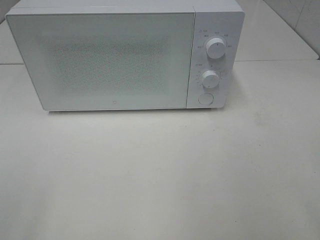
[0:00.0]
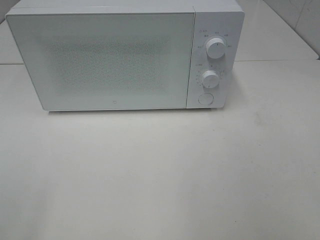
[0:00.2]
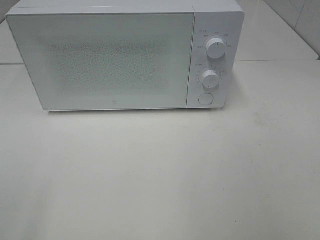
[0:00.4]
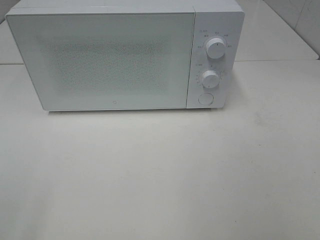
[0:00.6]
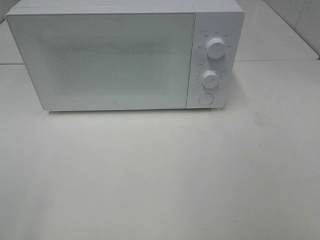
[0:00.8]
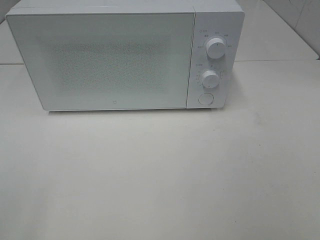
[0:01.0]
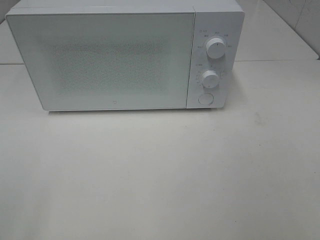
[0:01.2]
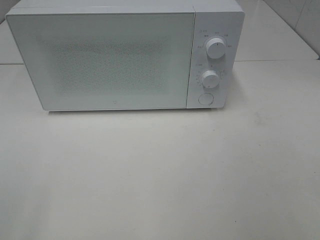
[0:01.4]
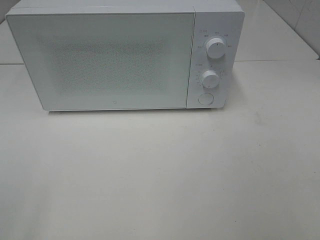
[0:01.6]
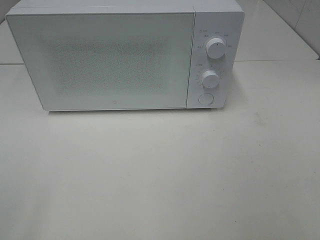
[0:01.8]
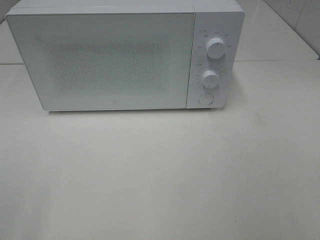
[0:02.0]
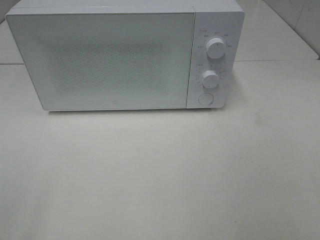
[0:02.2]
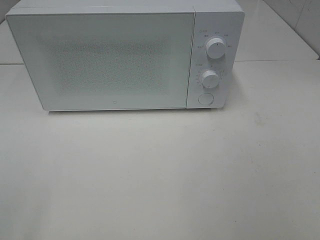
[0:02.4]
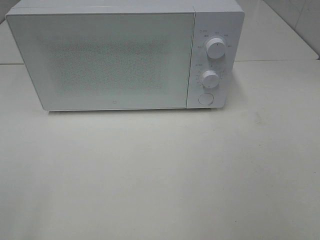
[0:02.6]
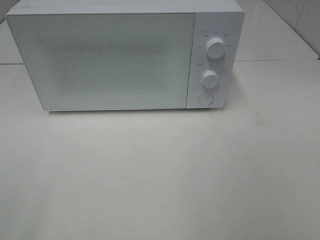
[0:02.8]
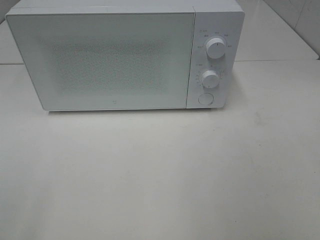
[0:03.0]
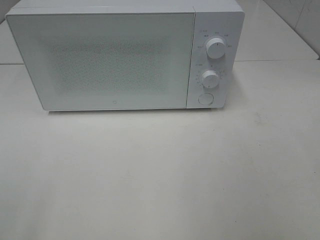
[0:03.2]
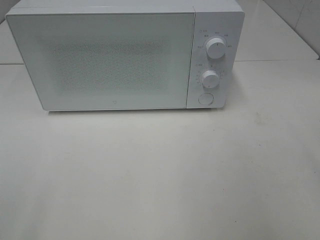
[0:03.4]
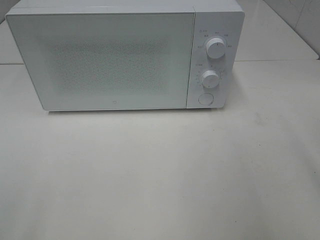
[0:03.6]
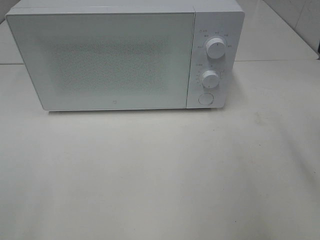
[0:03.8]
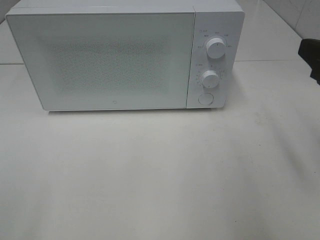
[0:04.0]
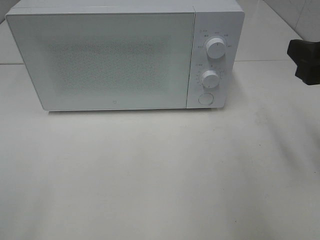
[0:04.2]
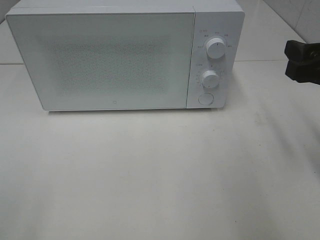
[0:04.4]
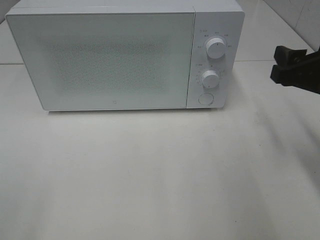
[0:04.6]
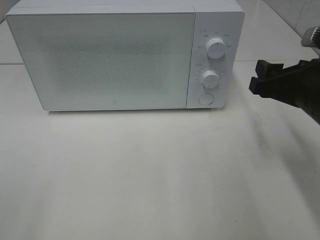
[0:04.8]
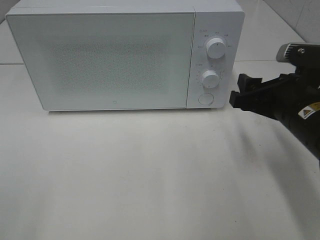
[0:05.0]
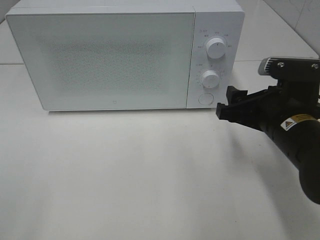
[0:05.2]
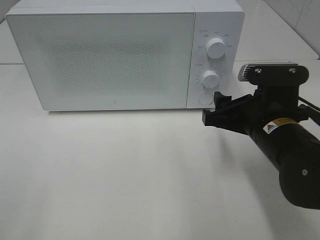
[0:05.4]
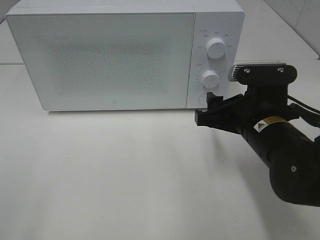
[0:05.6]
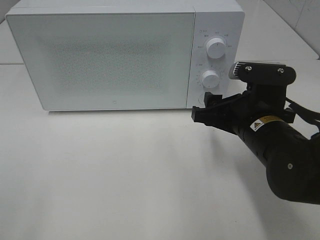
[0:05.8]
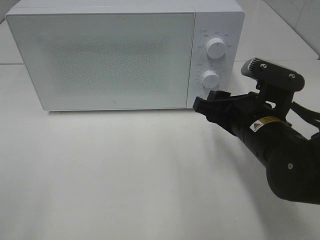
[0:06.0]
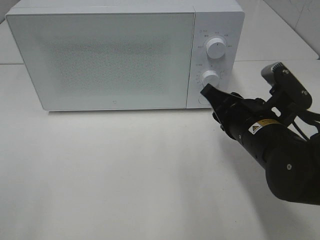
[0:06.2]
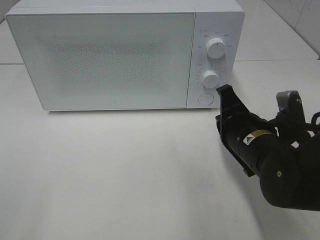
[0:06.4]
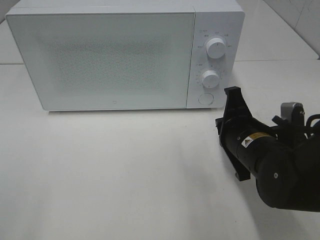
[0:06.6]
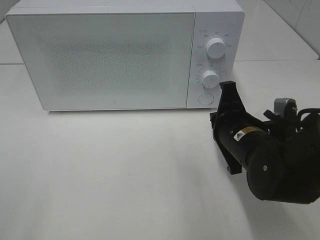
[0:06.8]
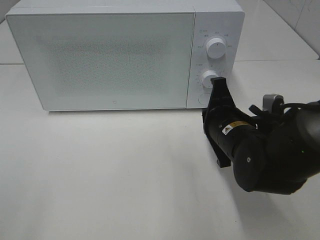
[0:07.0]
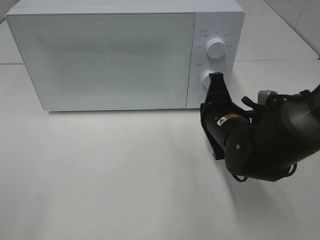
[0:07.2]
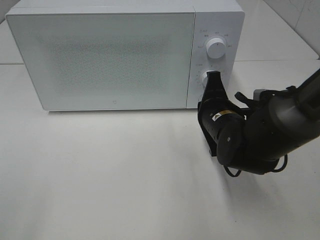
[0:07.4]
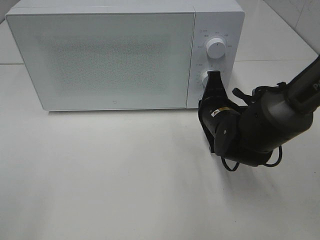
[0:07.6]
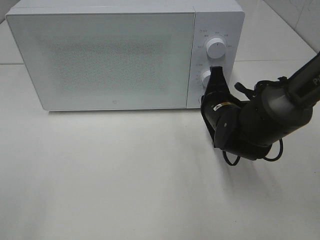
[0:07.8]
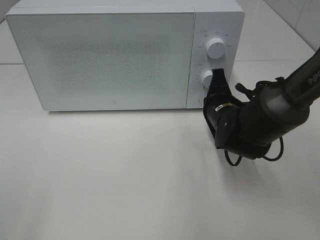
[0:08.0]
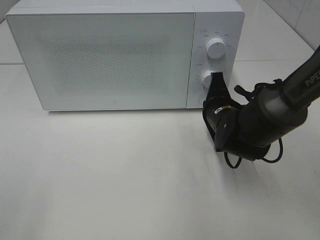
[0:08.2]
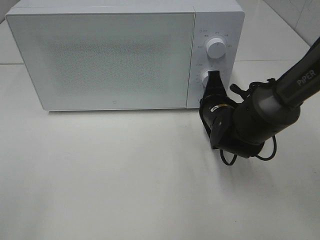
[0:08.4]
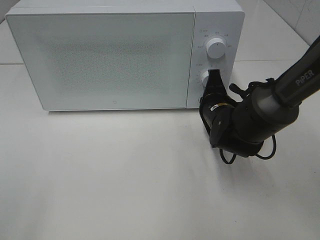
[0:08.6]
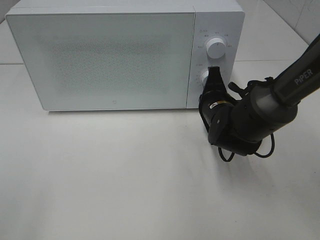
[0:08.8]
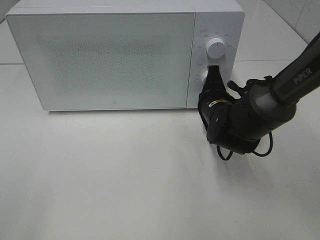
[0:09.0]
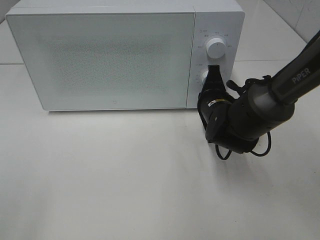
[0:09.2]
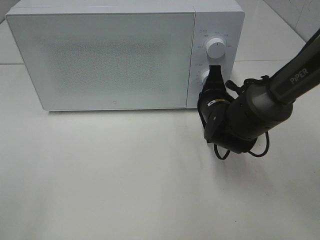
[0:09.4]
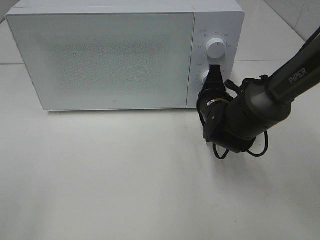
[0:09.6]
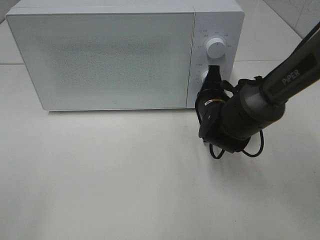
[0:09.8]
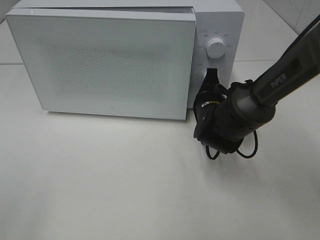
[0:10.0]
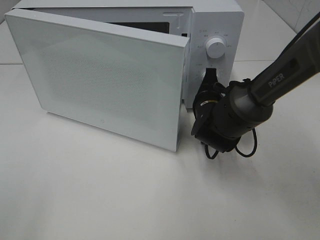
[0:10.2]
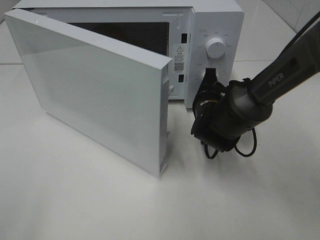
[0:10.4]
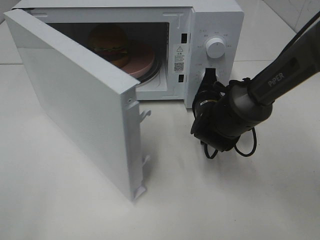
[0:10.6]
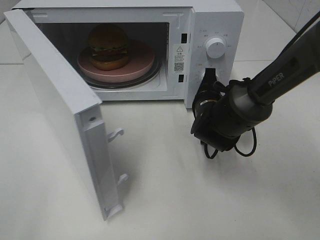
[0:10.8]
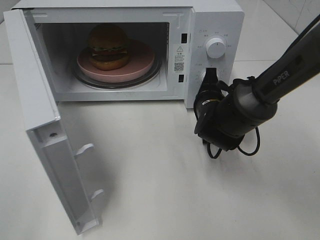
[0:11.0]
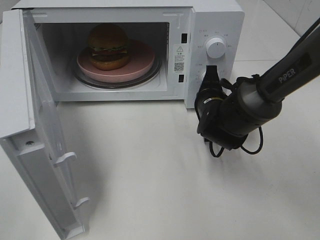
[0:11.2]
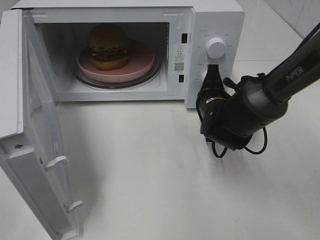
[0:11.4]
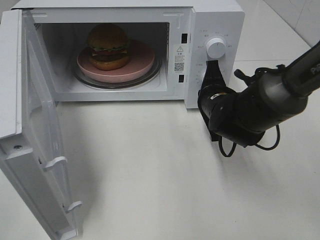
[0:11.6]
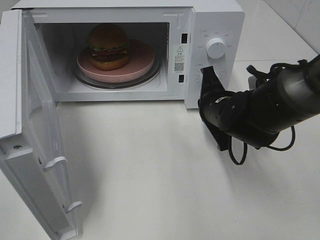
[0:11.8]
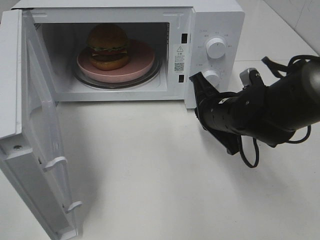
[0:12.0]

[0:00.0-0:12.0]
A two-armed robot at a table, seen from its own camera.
Task of the whole recording: Heat the burger.
Step, 0:00.0 to 0:11.6: Right hand: press the switch.
0:03.0 to 0:04.4: The right gripper travels forward and downward by some 20 cm.
0:04.4 to 0:06.0: The right gripper is displaced to the left and downward by some 15 cm.
0:06.0 to 0:07.6: The right gripper shifts some 10 cm forward and downward, and closes its fingers.
0:07.6 to 0:09.0: The grippers stay close to where they were, moving slightly.
0:10.4 to 0:12.0: The right gripper is displaced backward by about 5 cm.

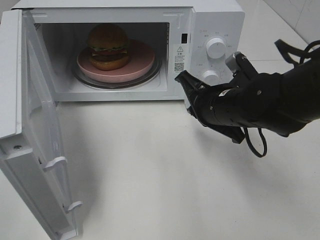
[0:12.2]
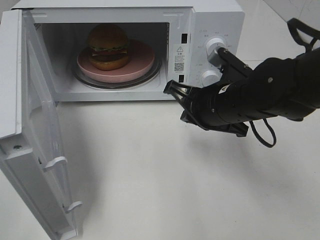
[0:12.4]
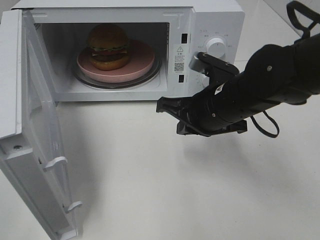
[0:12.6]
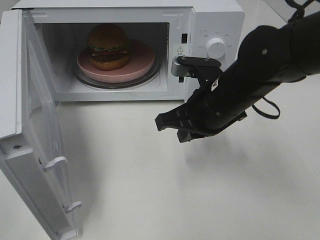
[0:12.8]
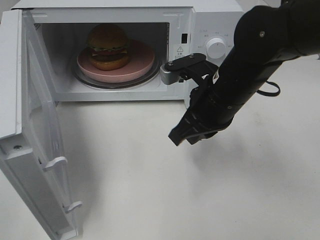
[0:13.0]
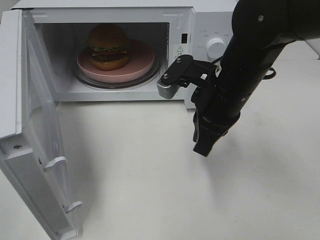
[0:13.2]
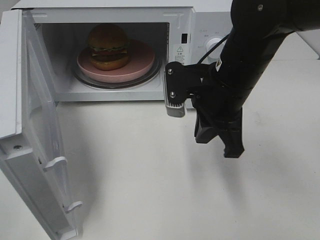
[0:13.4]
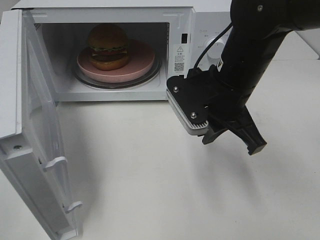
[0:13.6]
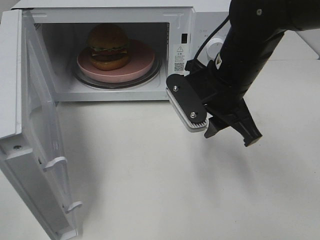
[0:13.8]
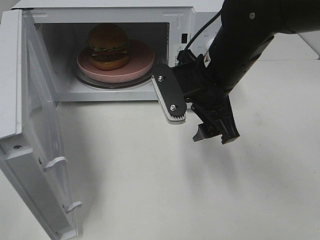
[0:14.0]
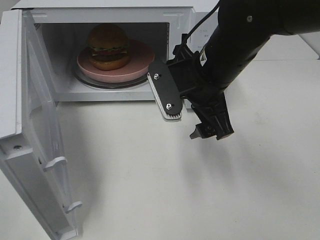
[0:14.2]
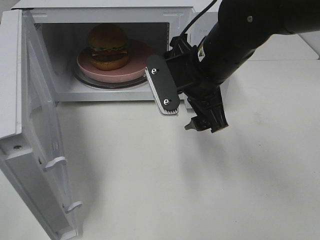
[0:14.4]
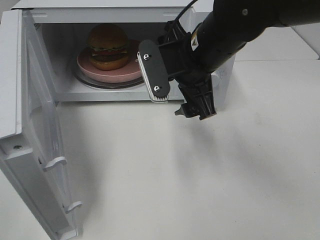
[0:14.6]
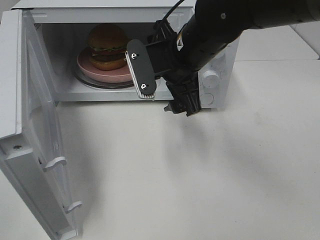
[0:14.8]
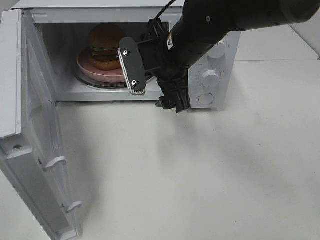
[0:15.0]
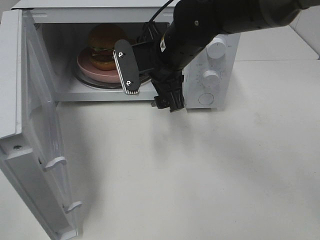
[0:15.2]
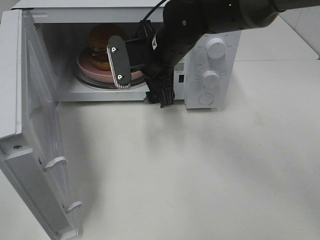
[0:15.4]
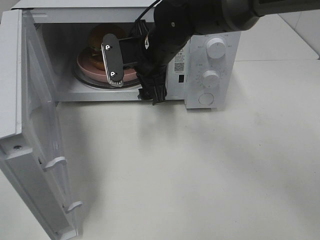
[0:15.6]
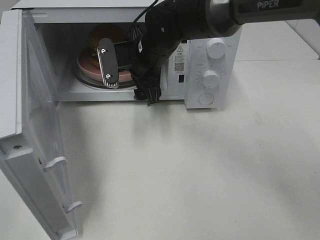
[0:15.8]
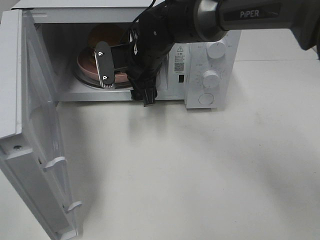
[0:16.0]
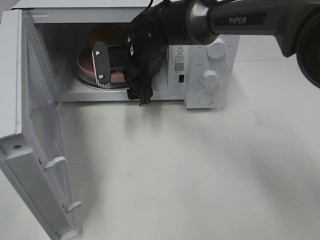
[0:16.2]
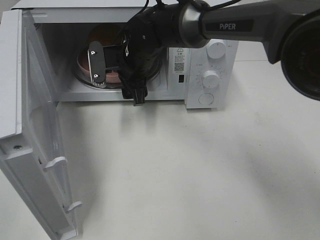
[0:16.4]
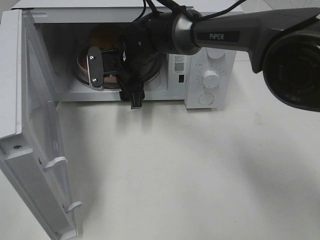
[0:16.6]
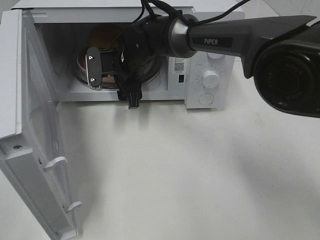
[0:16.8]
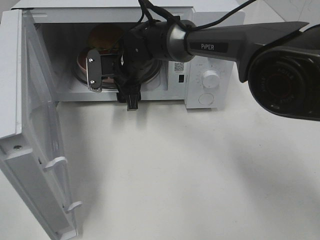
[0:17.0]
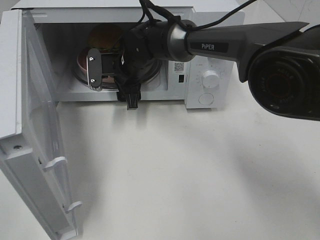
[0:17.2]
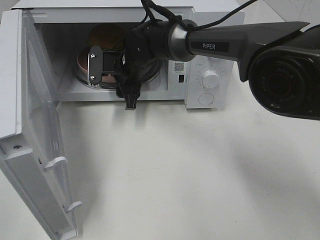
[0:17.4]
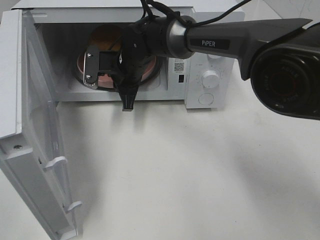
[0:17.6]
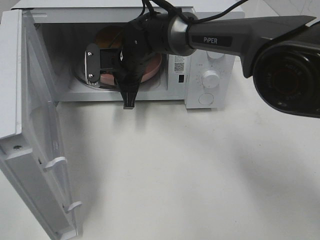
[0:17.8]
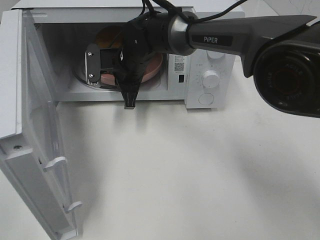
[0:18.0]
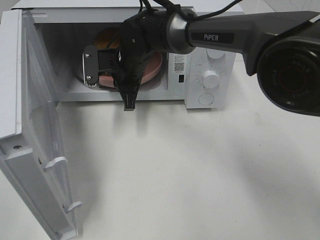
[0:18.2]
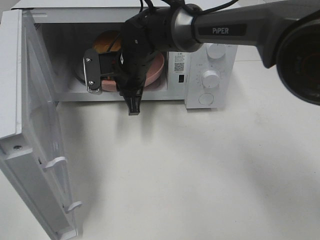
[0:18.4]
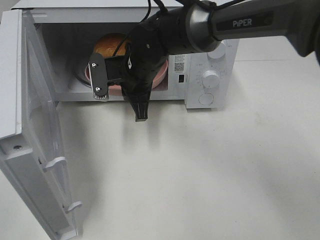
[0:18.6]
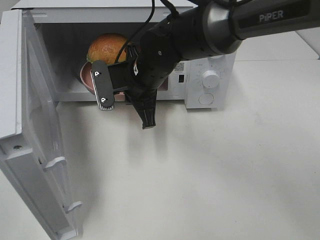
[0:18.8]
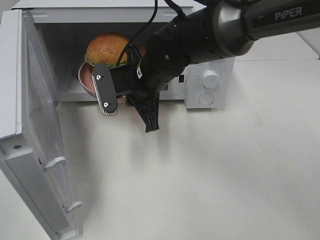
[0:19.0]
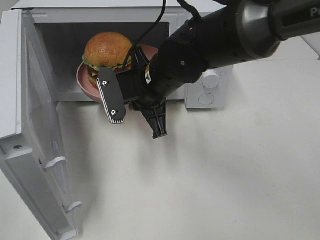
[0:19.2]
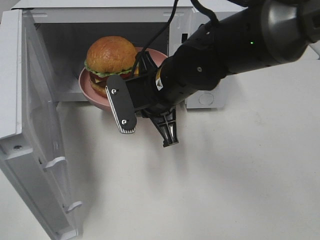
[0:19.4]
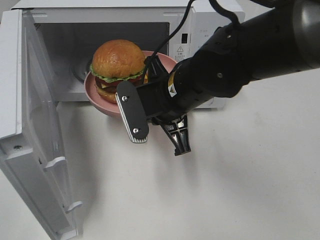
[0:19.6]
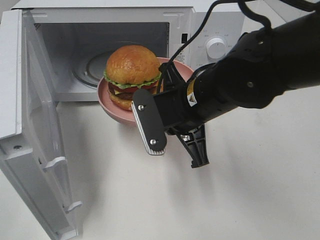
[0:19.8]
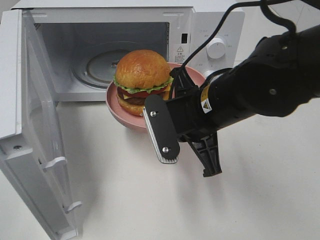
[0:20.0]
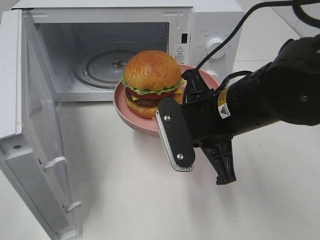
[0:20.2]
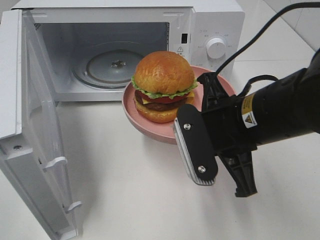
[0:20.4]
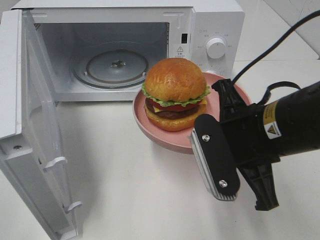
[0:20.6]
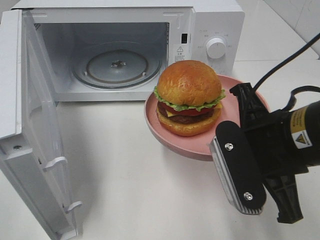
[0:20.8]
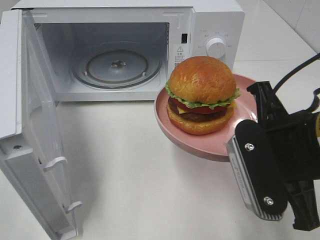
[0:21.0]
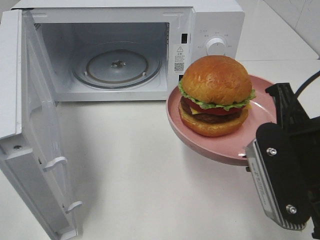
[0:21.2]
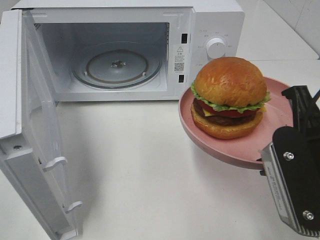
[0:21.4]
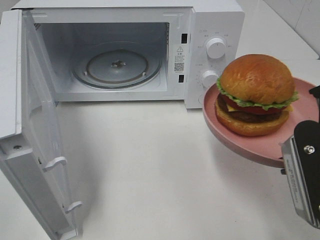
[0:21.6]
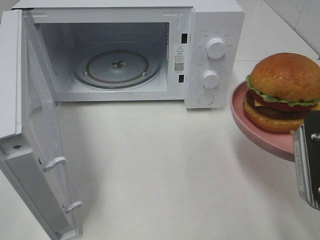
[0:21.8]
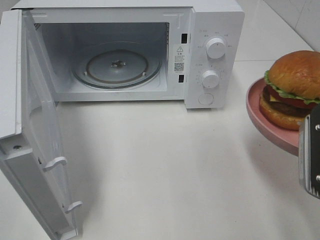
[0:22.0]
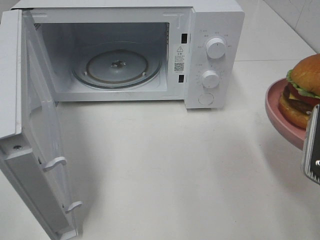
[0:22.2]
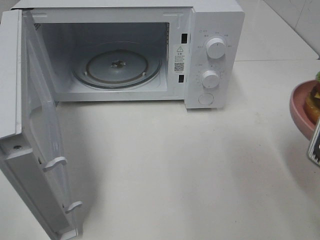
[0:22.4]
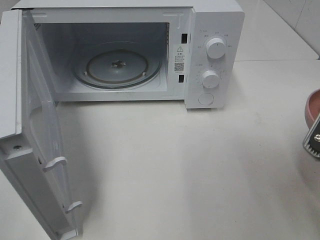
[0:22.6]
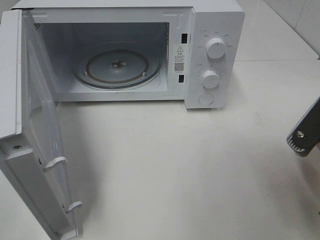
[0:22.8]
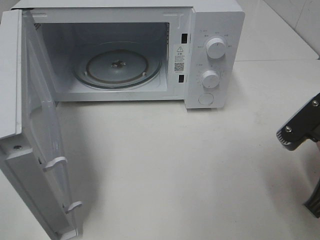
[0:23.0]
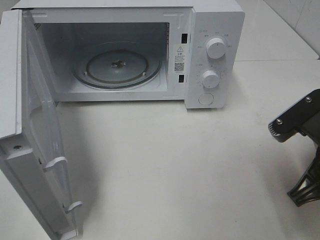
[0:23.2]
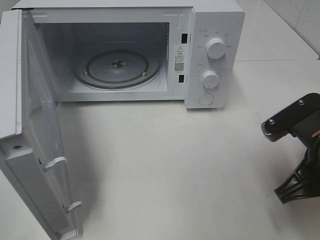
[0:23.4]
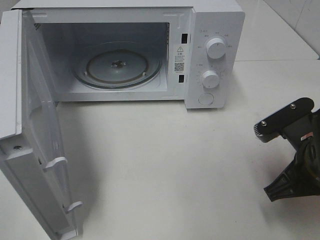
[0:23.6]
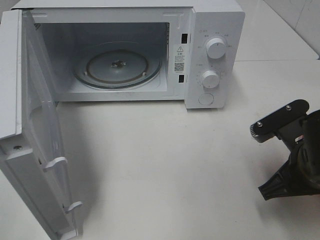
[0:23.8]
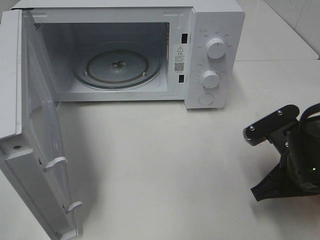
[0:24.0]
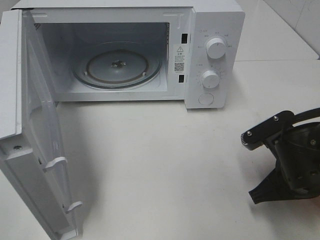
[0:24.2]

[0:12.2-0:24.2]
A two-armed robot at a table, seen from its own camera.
Task of the whole recording: Heat the burger.
Step, 0:12.2 to 0:17.6: Right hand: grab the plate with the hamburger.
0:12.2 to 0:13.8: The right gripper travels upward by some 5 cm, and opens up.
0:13.8 to 0:15.2: The right gripper goes about 10 cm to the left and forward, and opens up.
0:15.2 to 0:16.6: The right gripper goes roughly 10 cm forward, to the left and downward.
0:16.6 to 0:18.2: The right gripper closes its fingers.
0:18.2 to 0:19.8: The right gripper is displaced backward and to the right by roughly 20 cm.
0:19.8 to 0:21.2: The right gripper is displaced backward and to the right by about 15 cm.
0:21.2 to 0:22.6: The right gripper moves to the right, roughly 5 cm.
0:22.6 to 0:24.2: The right gripper moves downward and forward, roughly 15 cm.
